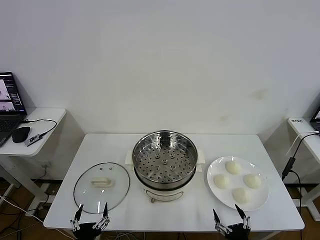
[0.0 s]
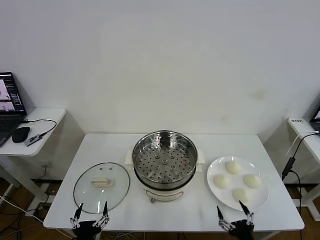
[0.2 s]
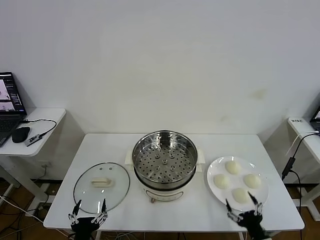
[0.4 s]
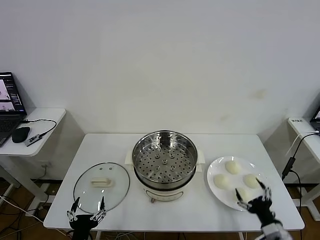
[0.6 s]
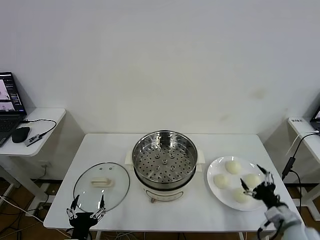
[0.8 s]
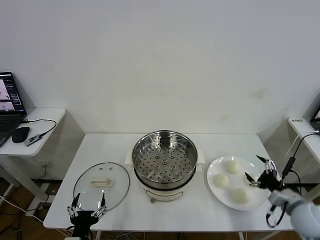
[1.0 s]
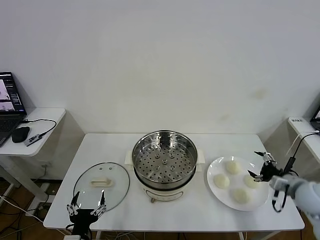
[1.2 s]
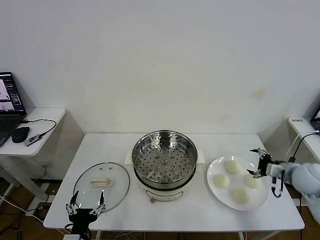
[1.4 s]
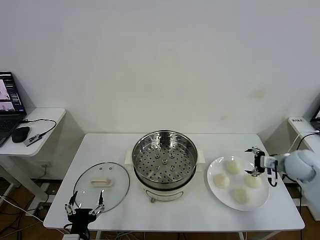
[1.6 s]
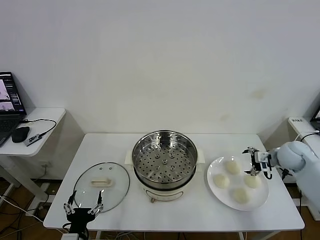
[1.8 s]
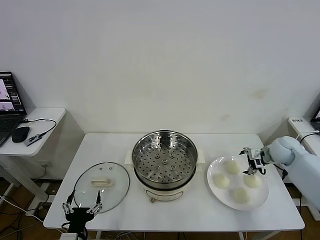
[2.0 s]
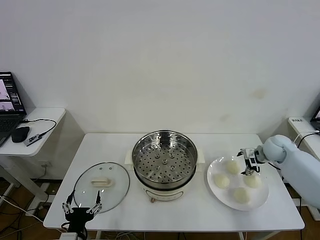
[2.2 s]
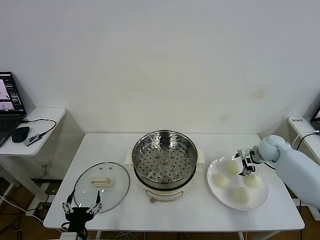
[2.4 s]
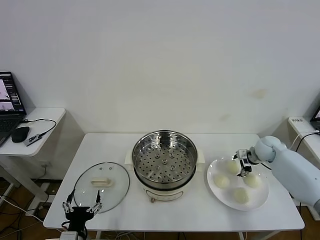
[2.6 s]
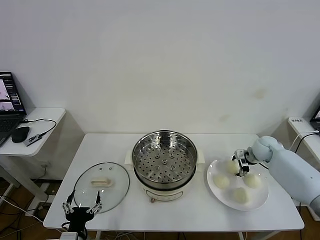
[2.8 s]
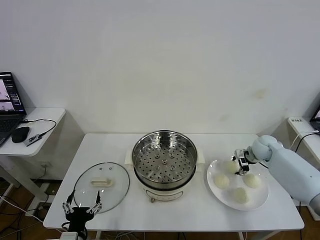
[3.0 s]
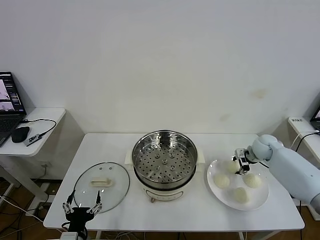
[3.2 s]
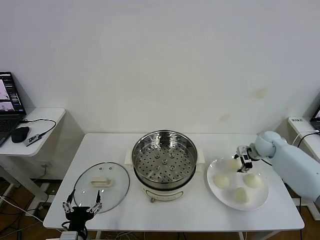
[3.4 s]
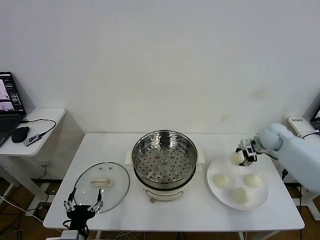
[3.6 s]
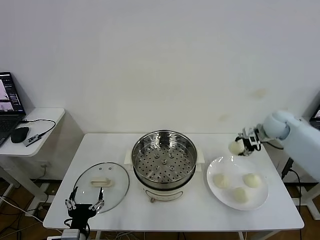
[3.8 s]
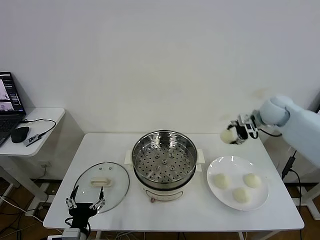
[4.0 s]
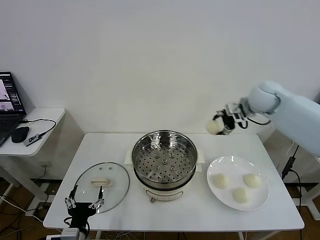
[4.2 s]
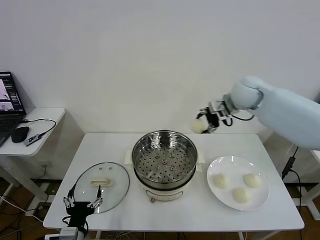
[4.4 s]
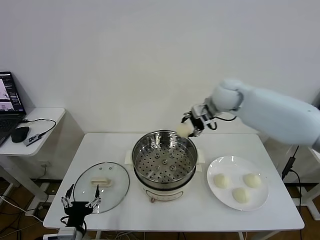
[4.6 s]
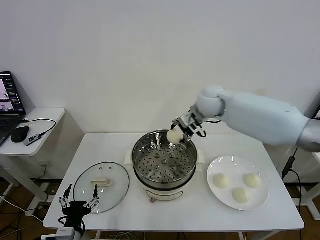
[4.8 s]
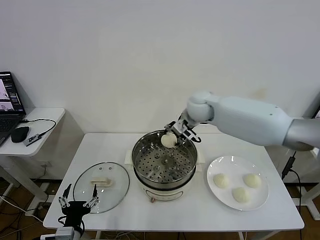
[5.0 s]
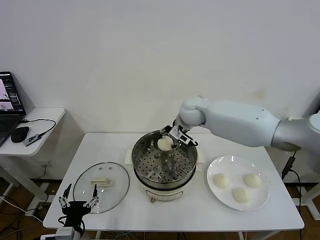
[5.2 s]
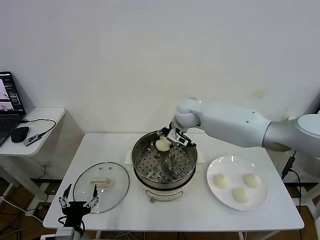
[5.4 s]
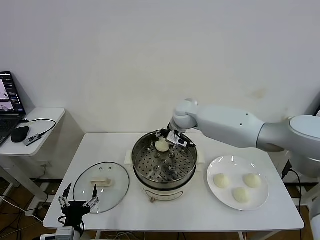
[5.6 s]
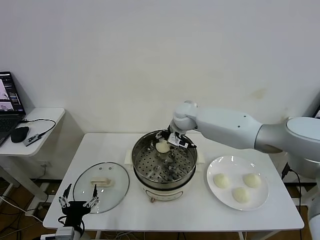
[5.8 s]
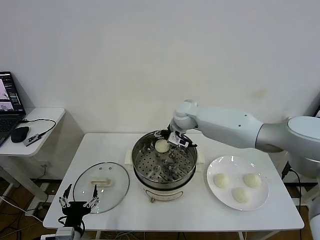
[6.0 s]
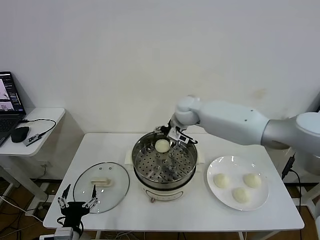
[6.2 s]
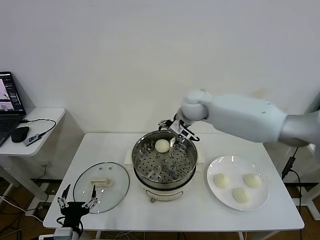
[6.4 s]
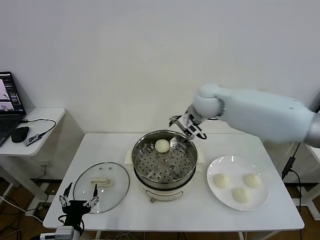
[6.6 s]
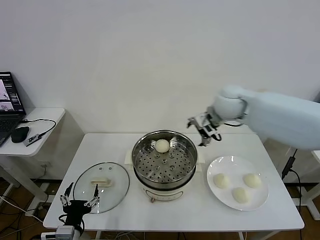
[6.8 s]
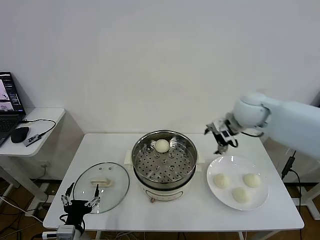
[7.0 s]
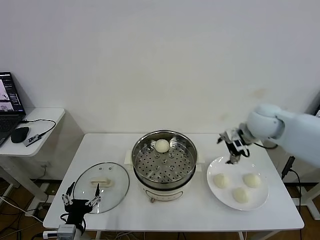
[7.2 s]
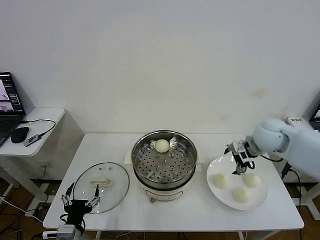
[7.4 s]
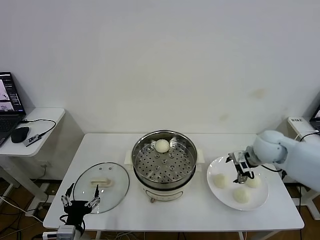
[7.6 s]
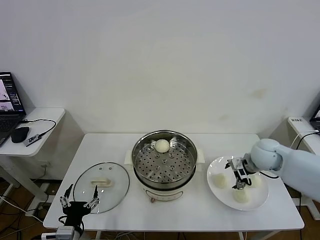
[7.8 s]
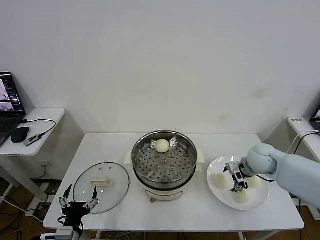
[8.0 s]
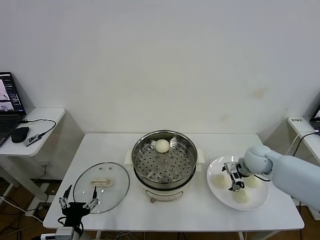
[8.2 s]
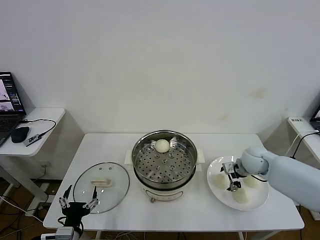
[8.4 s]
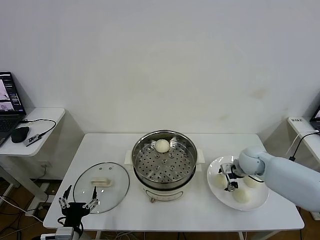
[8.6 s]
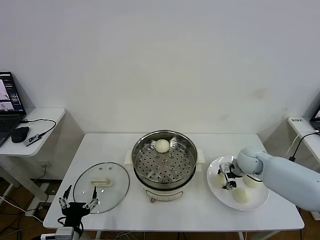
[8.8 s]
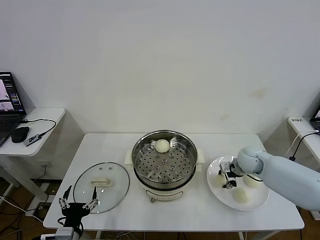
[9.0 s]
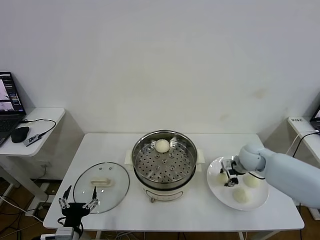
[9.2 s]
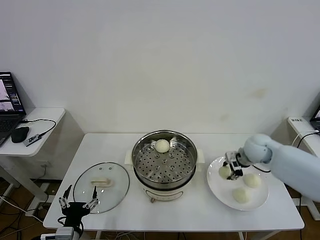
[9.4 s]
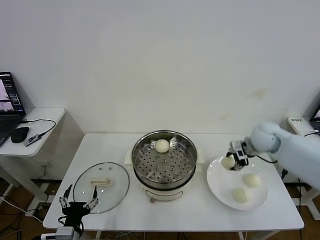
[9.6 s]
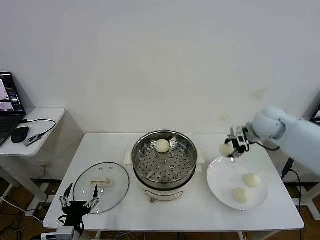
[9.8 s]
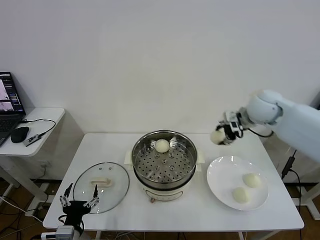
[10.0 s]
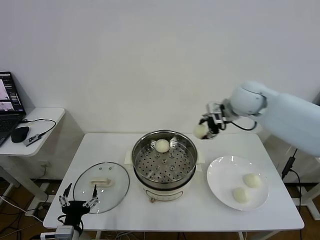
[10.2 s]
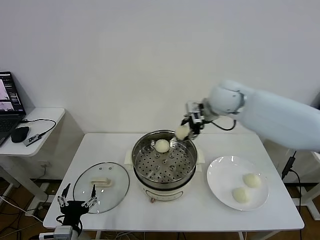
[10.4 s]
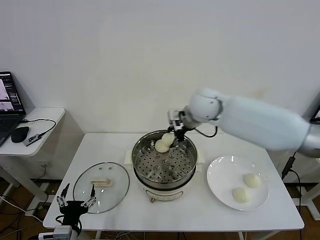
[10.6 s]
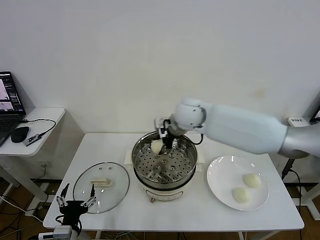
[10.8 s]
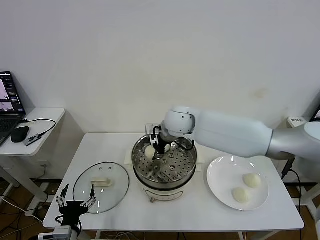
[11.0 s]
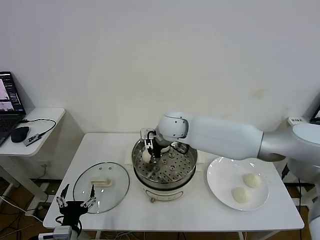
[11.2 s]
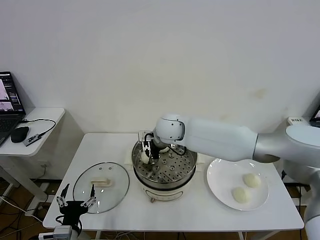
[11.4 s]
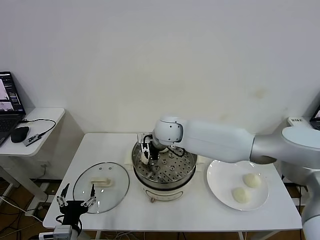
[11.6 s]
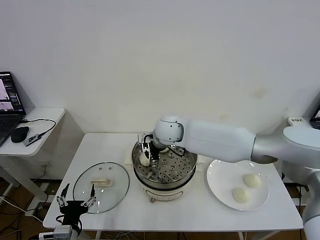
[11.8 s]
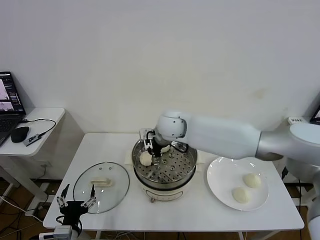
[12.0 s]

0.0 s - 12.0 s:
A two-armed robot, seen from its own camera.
Task of the whole recording: take steamed baozi put them in steamer then cover it.
Step, 0.0 s - 3.0 s: Grasp the baozi in the plate with right gripper.
Step, 3.2 s - 5.8 s: Place the baozi on the steamer with right gripper.
Step, 6.0 s - 8.8 s: Grasp the baozi in the plate with right gripper.
Step, 9.2 s - 11.8 s: Place the baozi on the steamer with right gripper.
1.6 s - 3.0 s: The right gripper is displaced forward and downward by some 15 cm, and closes its fingers.
3.0 s - 4.4 s: The right gripper goes about 30 cm upward and to the left.
4.4 s - 6.0 s: The right gripper travels to the left and downward by some 20 cm, and opens its fingers.
6.0 s - 7.6 s: The right gripper travels to the right and backward by approximately 30 cm.
7.6 s - 9.0 s: The right gripper heads downward, covering some 10 cm, and closes.
9.0 s - 10.4 s: The right gripper shifts approximately 30 cm upward and to the left.
10.4 s - 12.0 s: The right gripper travels to the left and downward by some 15 cm, and opens.

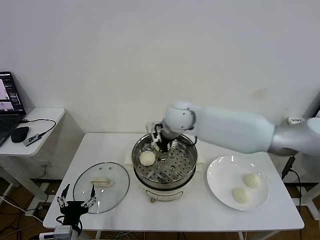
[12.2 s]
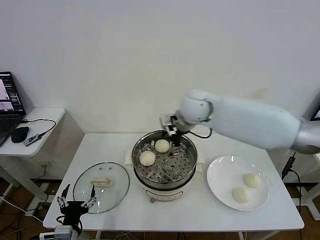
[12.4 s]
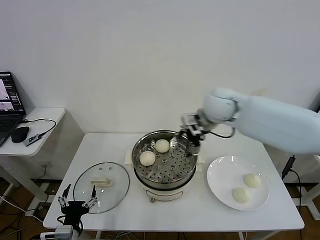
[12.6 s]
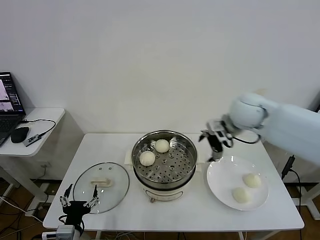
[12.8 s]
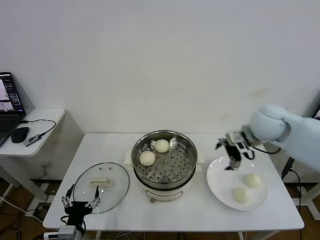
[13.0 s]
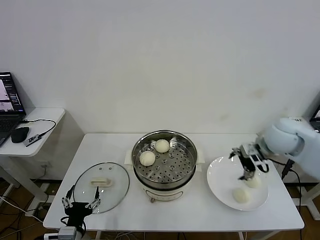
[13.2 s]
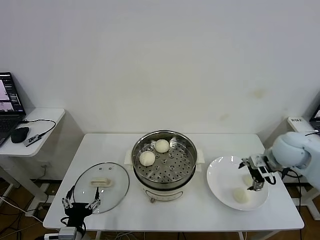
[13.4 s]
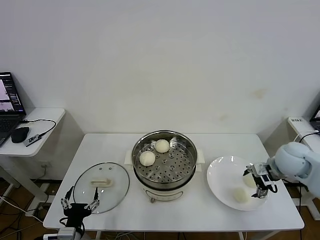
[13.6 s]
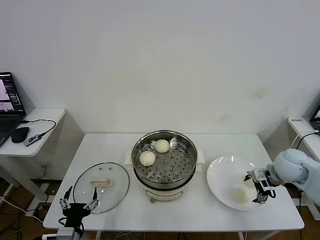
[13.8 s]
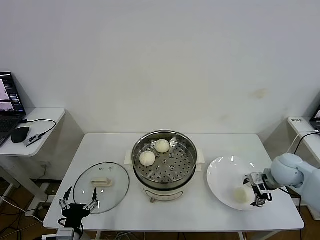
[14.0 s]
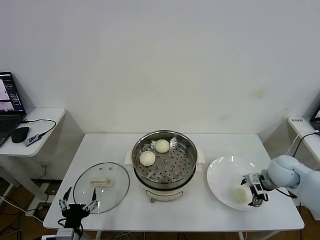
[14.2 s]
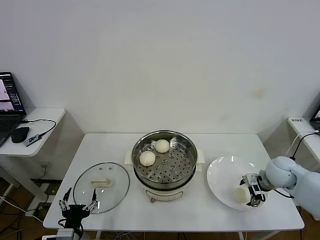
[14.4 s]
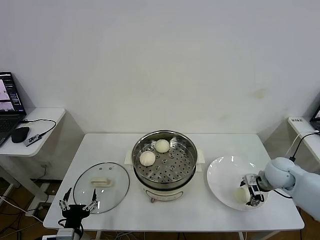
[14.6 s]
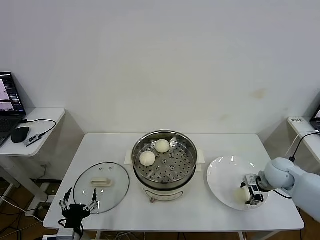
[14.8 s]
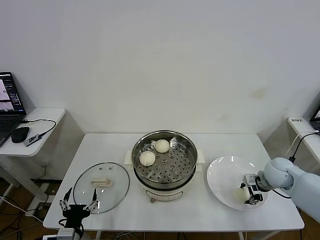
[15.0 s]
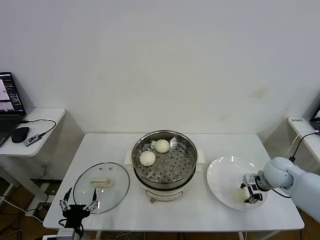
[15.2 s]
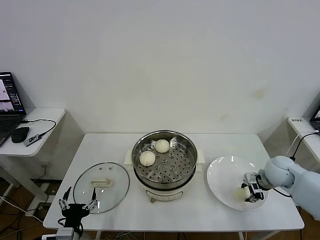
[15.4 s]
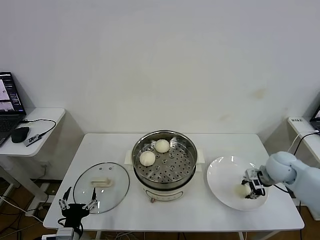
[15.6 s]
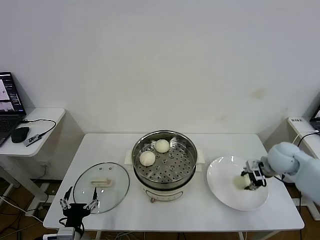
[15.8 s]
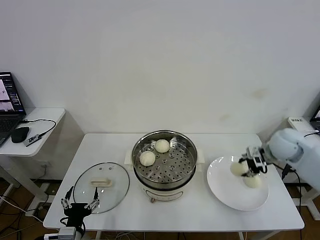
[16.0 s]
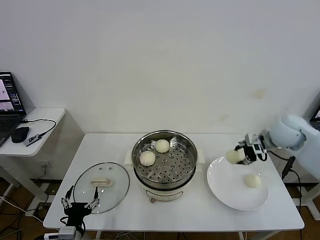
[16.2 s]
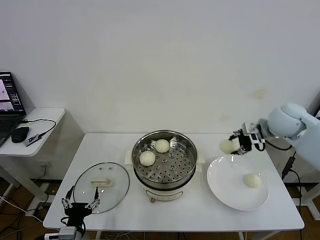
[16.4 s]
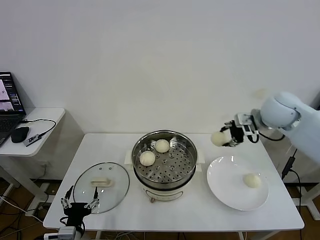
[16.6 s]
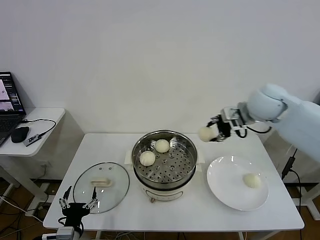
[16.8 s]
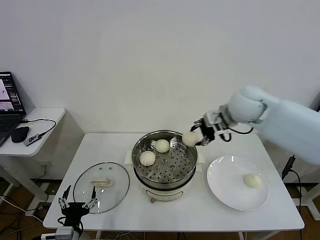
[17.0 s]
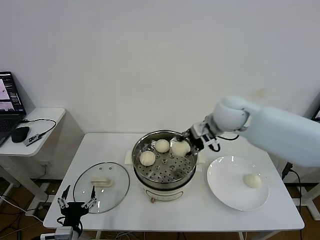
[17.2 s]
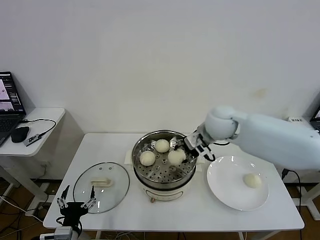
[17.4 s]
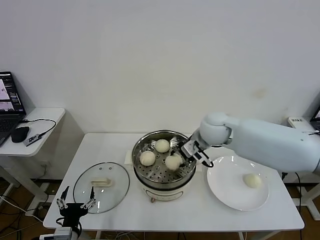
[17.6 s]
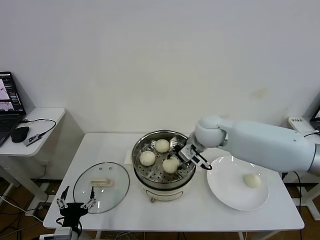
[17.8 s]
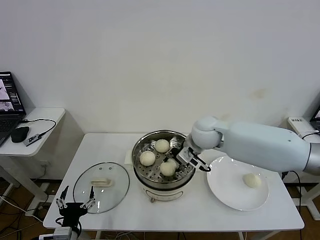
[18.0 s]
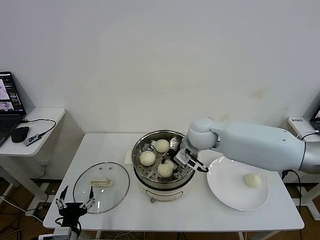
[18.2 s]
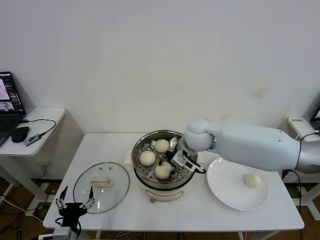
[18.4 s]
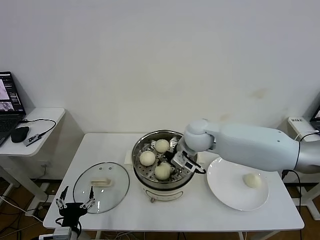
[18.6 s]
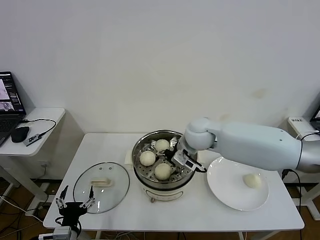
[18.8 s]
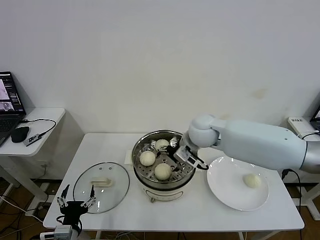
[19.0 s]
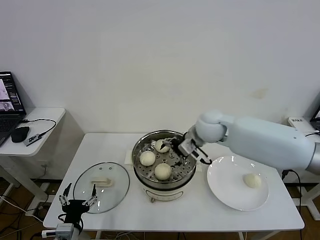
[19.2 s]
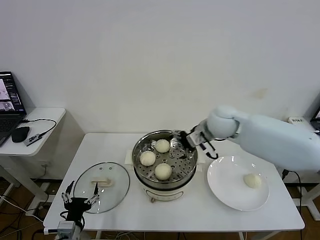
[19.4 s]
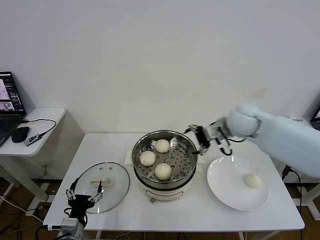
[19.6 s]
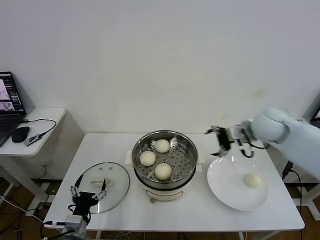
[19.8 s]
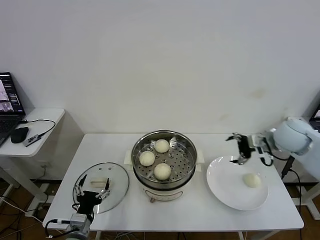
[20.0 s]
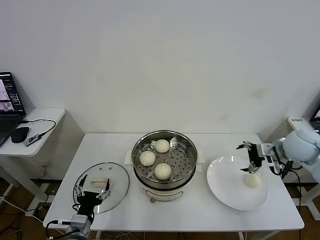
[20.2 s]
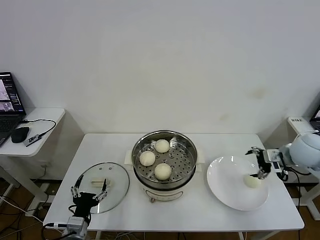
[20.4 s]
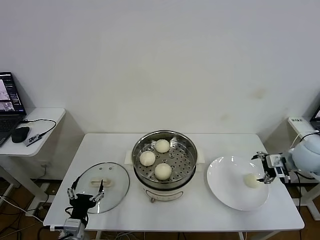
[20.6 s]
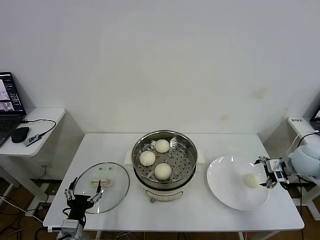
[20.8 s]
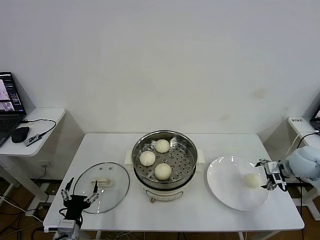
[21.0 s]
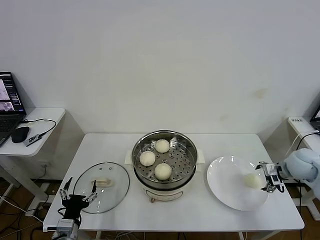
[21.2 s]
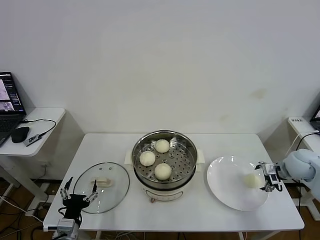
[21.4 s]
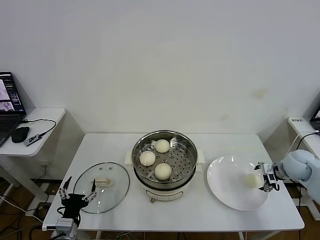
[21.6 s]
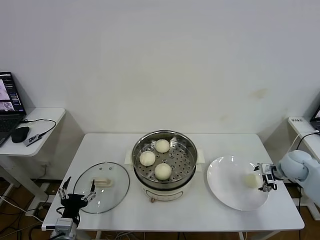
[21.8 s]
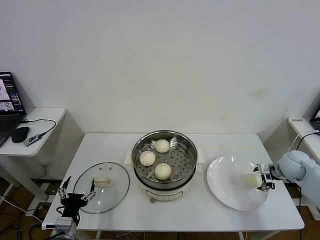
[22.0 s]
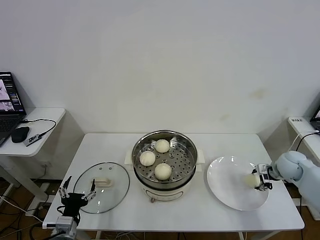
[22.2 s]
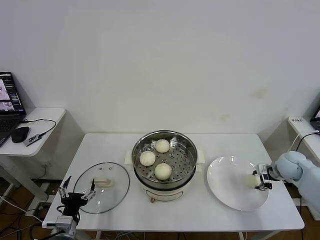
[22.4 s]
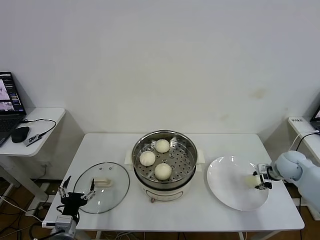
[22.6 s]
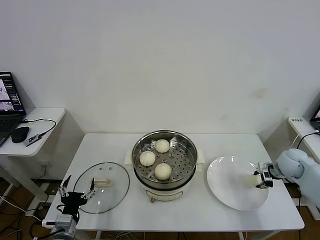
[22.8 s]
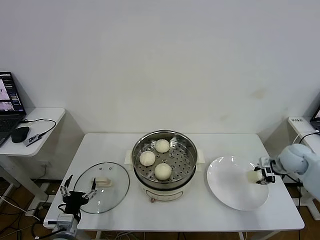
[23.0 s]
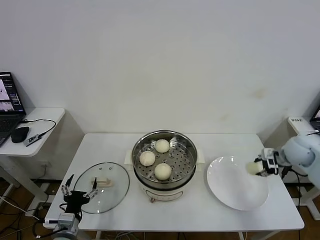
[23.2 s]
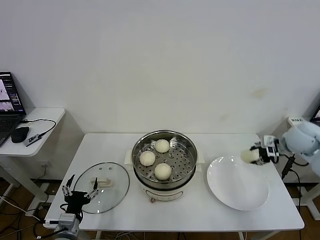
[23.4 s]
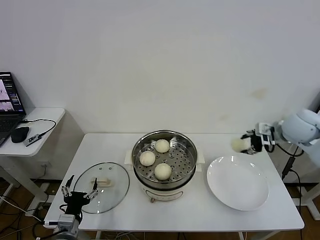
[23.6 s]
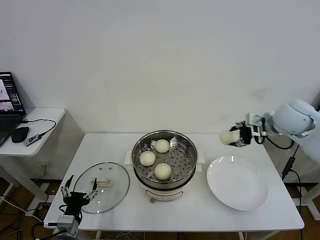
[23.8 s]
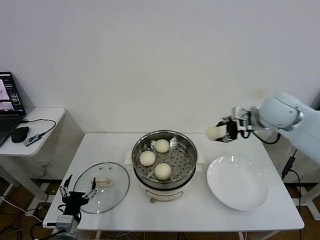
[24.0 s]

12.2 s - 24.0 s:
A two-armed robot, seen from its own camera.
Task of the whole recording: take steamed baozi put them in steamer then cover it.
Step, 12.2 s - 15.0 s: Grasp the baozi in the plate with right gripper.
Step, 15.4 s - 18.6 s: Place the baozi on the steamer with right gripper.
Step, 18.8 s - 22.4 s: Grasp the baozi in the plate with right gripper.
12.2 s - 13.6 s: The right gripper travels to the right by approximately 35 cm.
13.6 s - 15.2 s: The right gripper shifts approximately 10 cm downward, and closes.
15.2 s - 16.6 s: The right gripper moves upward, roughly 20 cm.
16.6 s - 18.2 s: The right gripper is displaced to the left and downward by approximately 20 cm.
18.2 s - 19.6 s: The right gripper travels to the right by approximately 10 cm, and opens.
19.6 s - 21.0 s: The right gripper heads to the right and downward, covering about 25 cm.
21.0 s - 22.6 s: The right gripper moves downward, roughly 5 cm, and closes up.
22.6 s - 24.0 s: The right gripper shifts some 25 cm upward and to the left.
